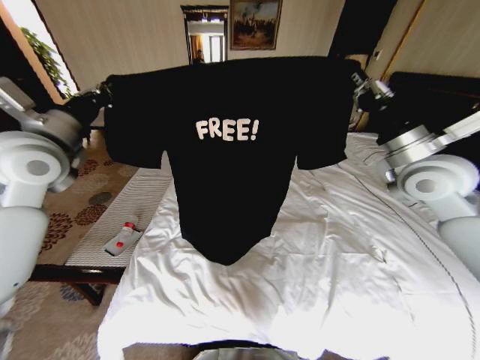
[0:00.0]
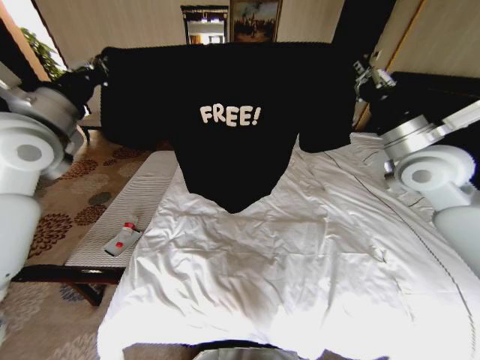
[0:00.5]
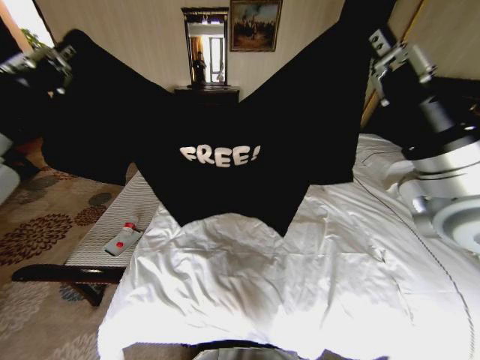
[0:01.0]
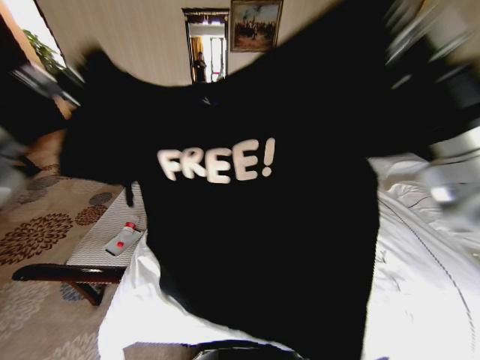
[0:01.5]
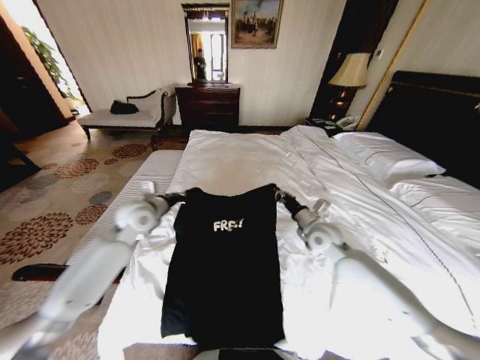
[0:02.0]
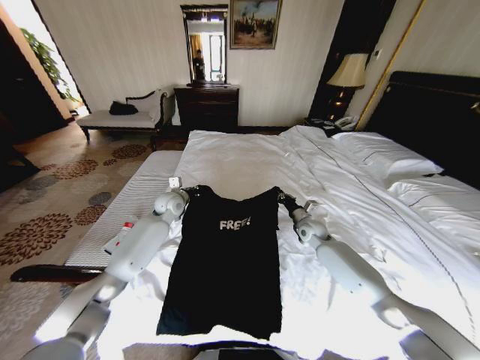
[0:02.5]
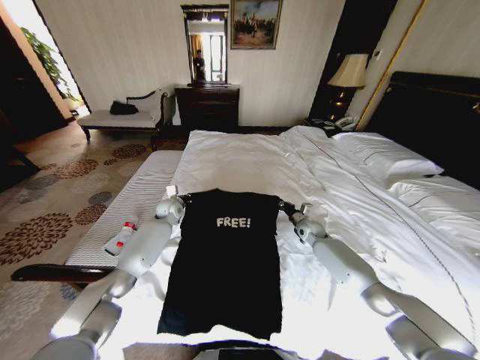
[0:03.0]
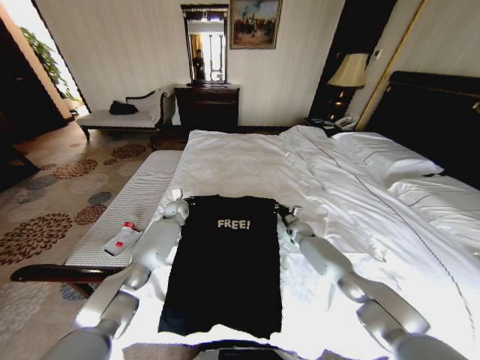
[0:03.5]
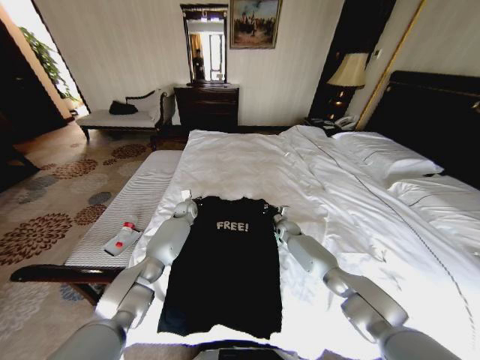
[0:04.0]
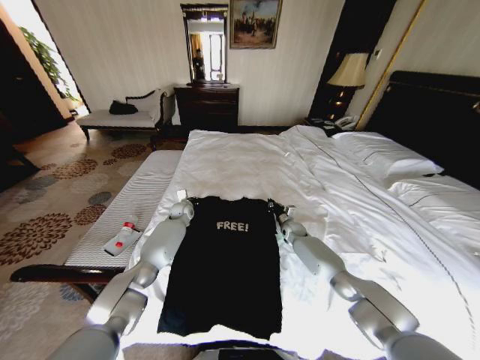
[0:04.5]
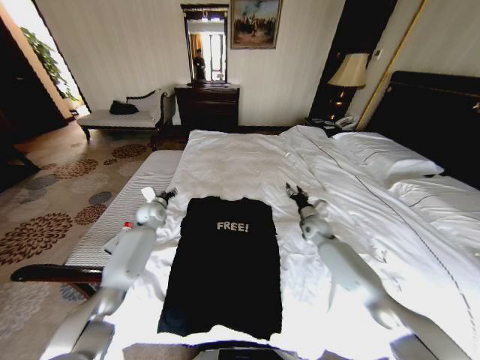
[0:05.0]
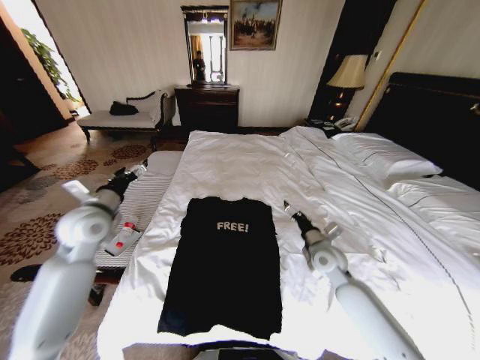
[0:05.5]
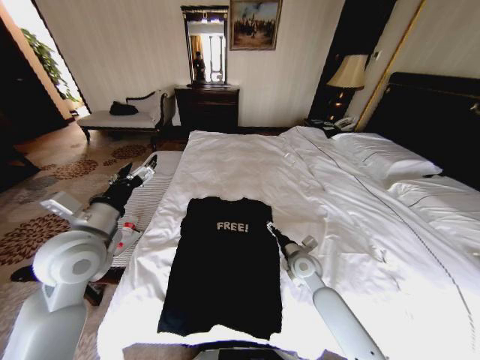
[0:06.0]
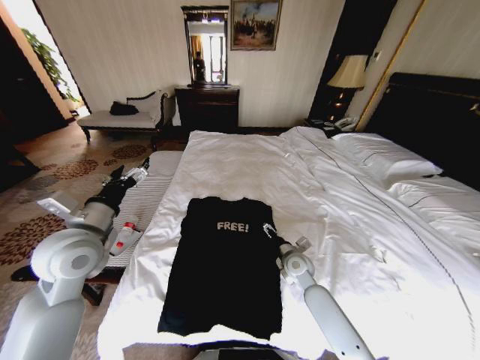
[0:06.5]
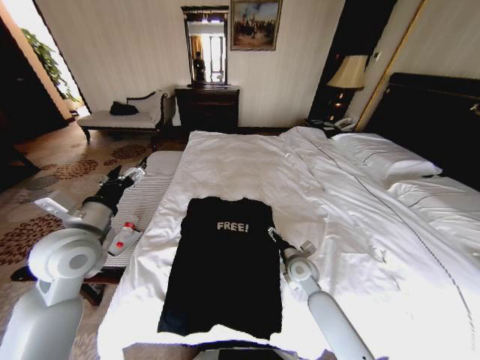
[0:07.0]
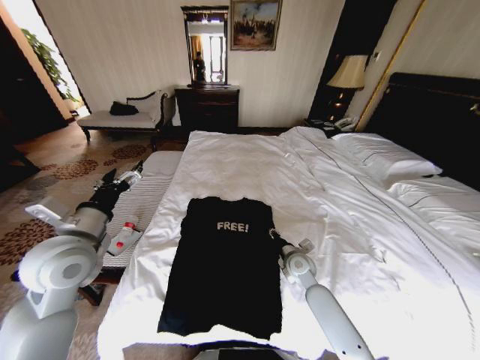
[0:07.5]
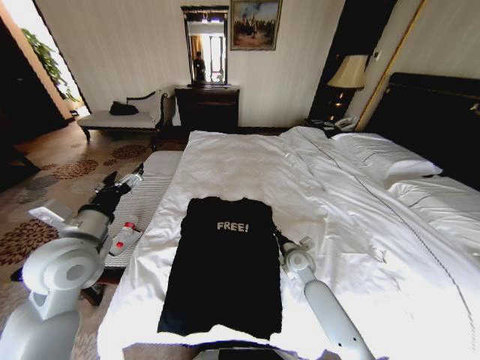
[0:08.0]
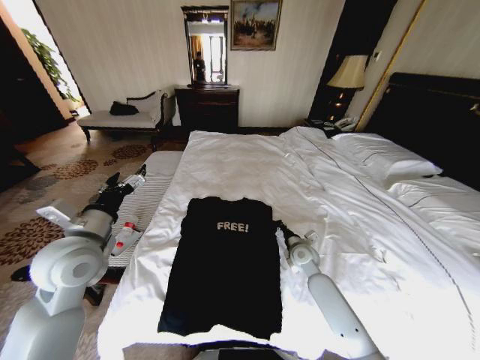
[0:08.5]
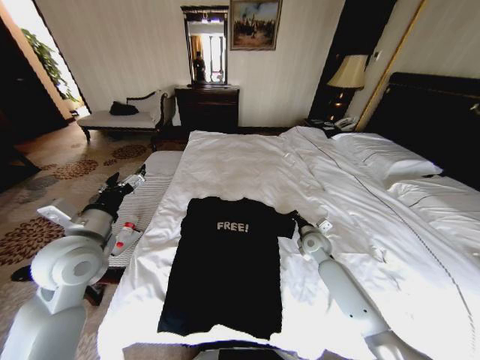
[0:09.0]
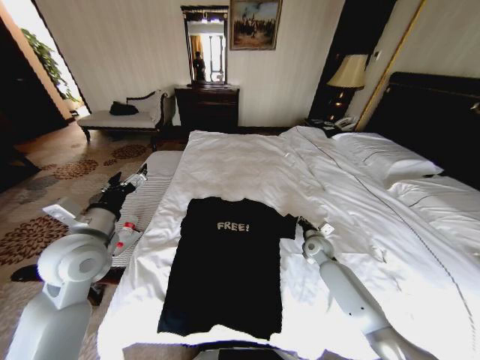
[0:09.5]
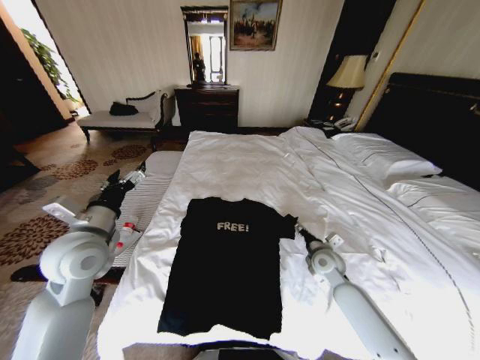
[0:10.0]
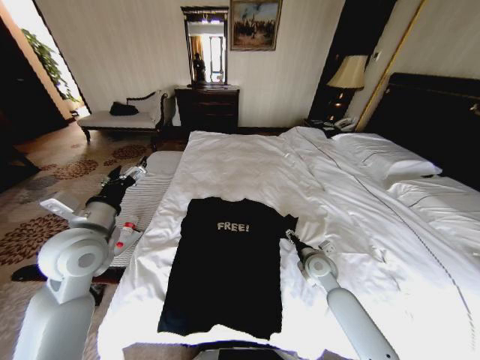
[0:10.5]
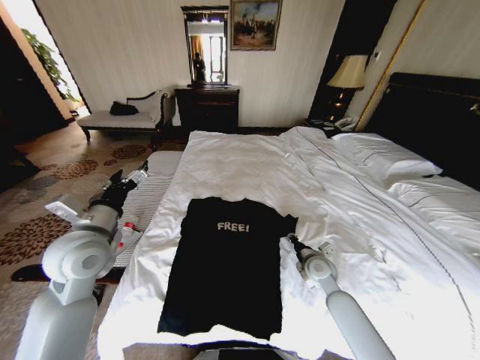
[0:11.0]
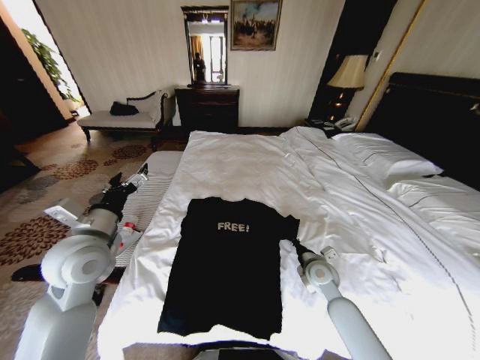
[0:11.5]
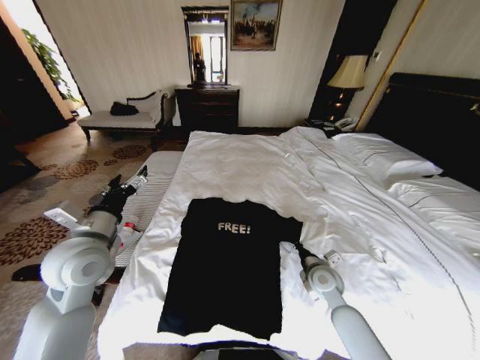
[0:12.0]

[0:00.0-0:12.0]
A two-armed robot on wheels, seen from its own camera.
Task of the whole recording: Fold the clothes on the bed.
0:00.0 to 0:02.0: The left gripper travels downward and to the right by about 20 cm, while the right gripper goes about 25 cm downward.
0:02.0 to 0:04.0: The left gripper travels forward and downward by about 25 cm. Meanwhile the right gripper goes approximately 25 cm downward and forward.
0:04.0 to 0:06.0: The left gripper shifts approximately 40 cm backward and upward, and opens its fingers, while the right gripper goes about 20 cm backward, and opens up.
0:06.0 to 0:08.0: The right gripper closes its fingers.
0:08.0 to 0:10.0: The right gripper goes approximately 5 cm to the right, and opens.
0:10.0 to 0:12.0: The right gripper shifts by approximately 5 cm, and closes its fingers.

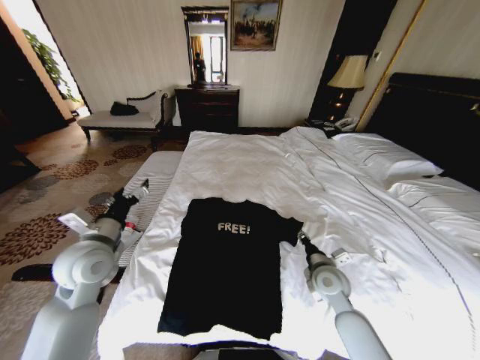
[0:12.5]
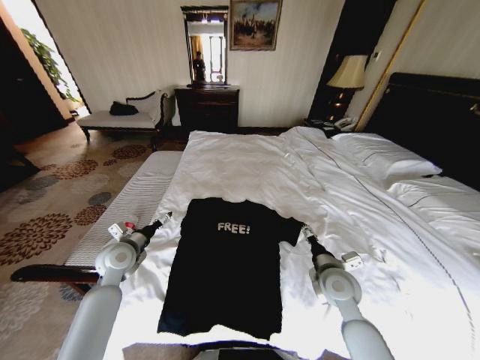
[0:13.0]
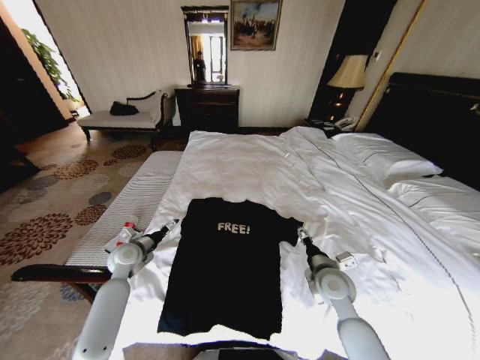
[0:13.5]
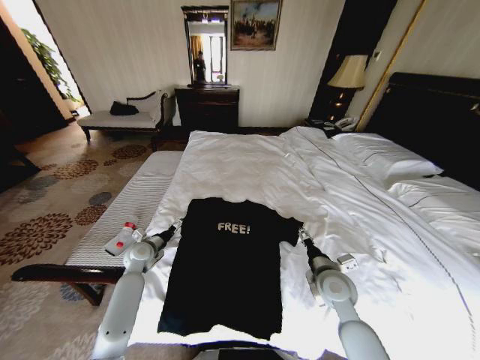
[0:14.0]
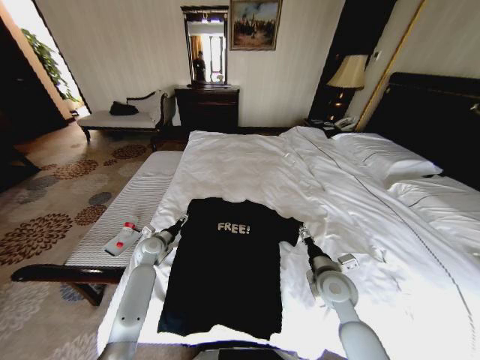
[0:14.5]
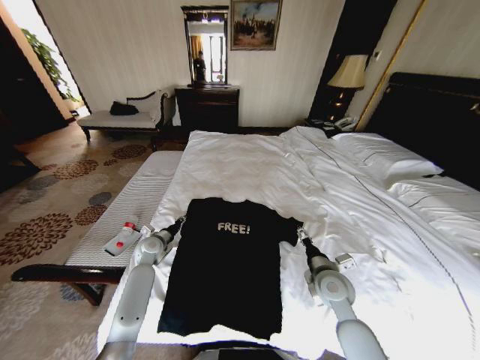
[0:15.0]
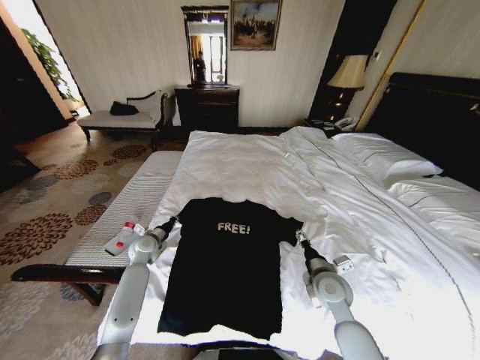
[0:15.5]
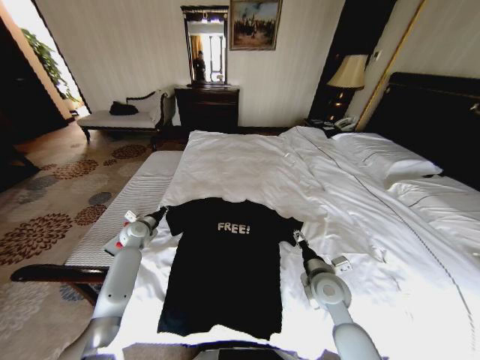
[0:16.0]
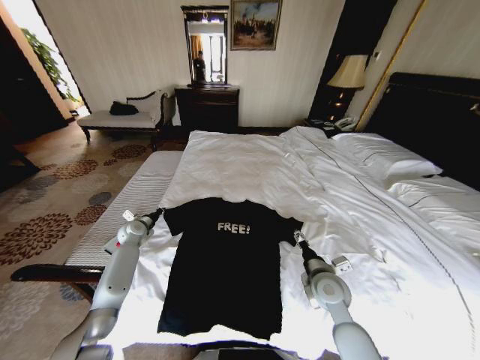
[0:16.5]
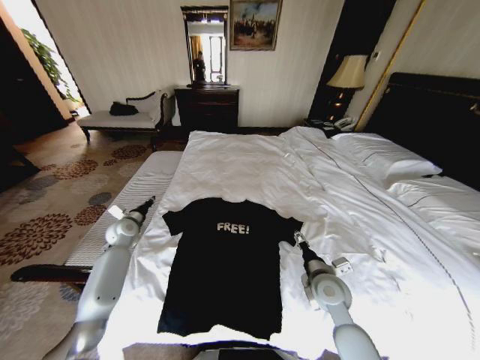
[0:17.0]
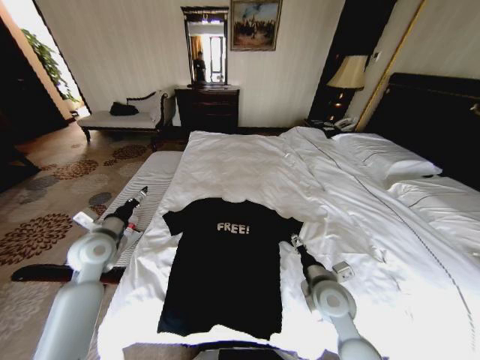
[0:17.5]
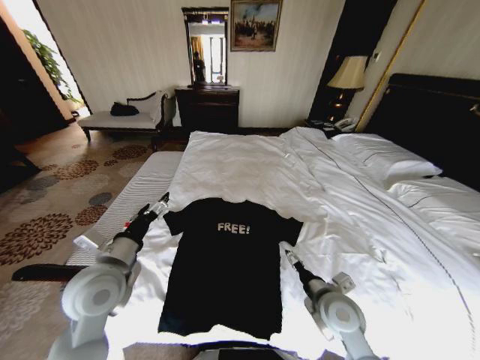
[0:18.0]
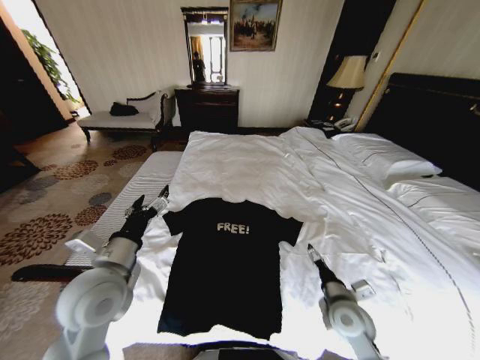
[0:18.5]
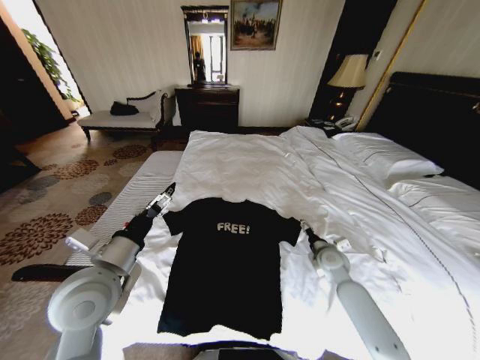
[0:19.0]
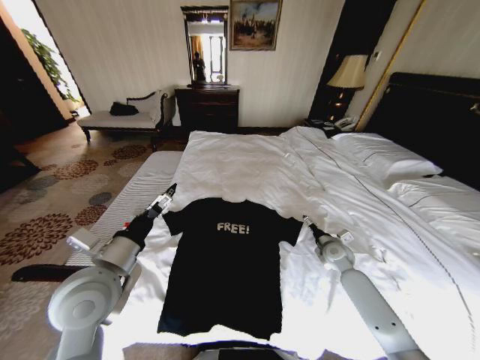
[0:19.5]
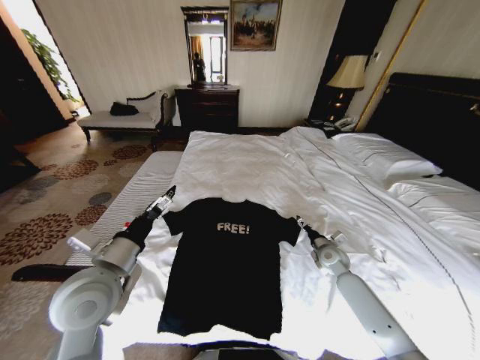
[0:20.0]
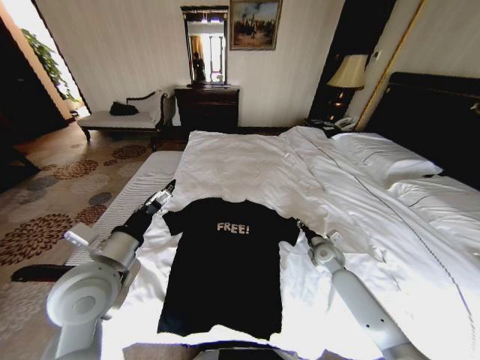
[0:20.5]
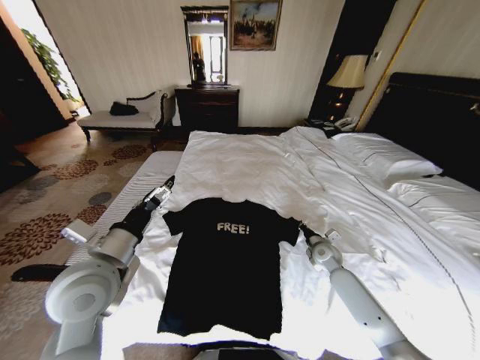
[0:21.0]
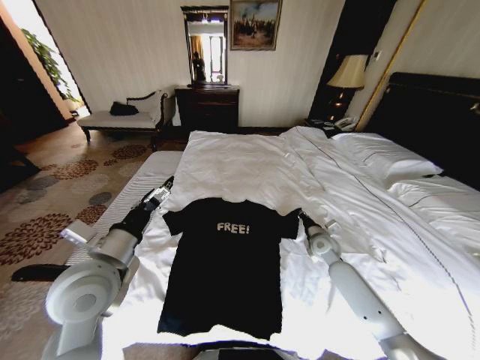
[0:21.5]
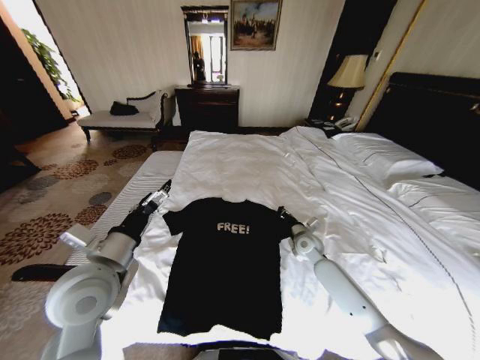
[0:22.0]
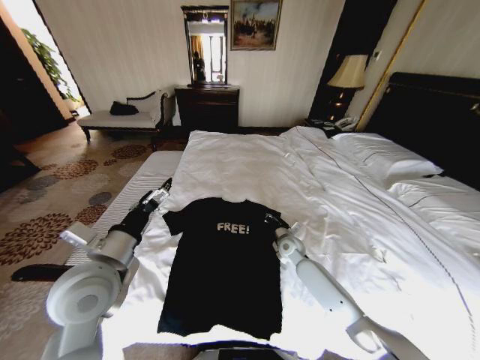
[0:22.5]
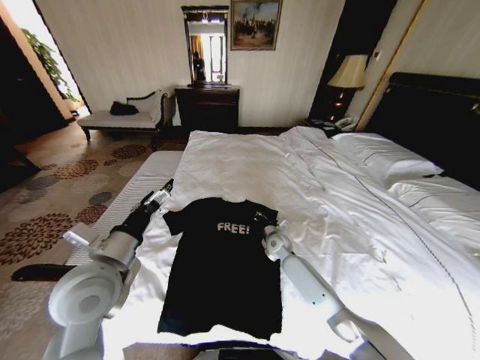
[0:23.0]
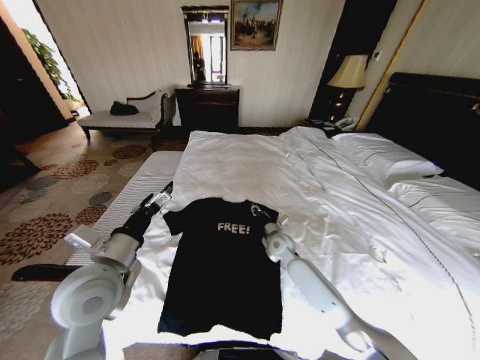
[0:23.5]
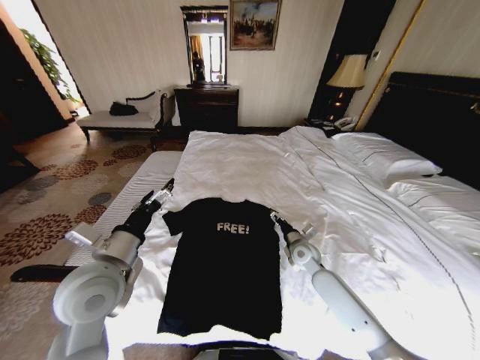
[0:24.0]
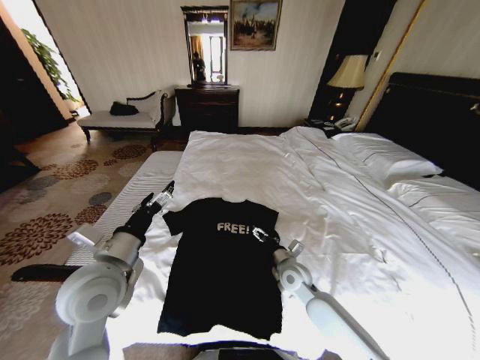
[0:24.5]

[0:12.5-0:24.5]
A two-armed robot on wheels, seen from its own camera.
Task of the whole recording: Fold the clothes on the bed.
0:12.5 to 0:14.5: The right gripper opens; the left gripper heads downward and forward, covering roughly 25 cm.
0:14.5 to 0:16.5: The left gripper goes some 10 cm to the left and forward, and closes.
0:16.5 to 0:18.5: The right gripper travels backward by roughly 5 cm, while the left gripper heads backward, upward and to the right, covering some 35 cm, and opens its fingers.
0:18.5 to 0:20.5: The right gripper travels forward by roughly 20 cm.
0:20.5 to 0:22.5: The right gripper heads to the left, covering roughly 15 cm, and closes up.
0:22.5 to 0:24.5: The right gripper is displaced backward by roughly 10 cm, and opens its fingers.

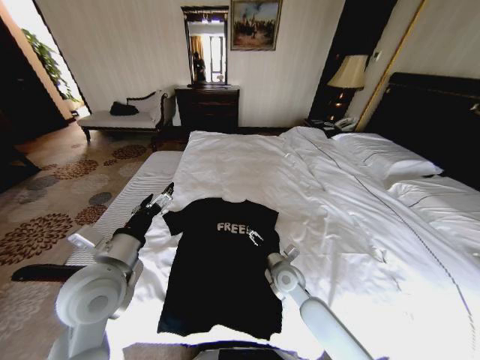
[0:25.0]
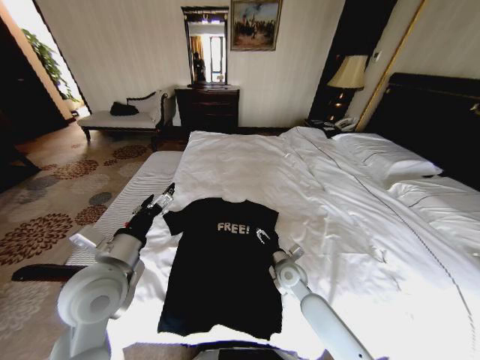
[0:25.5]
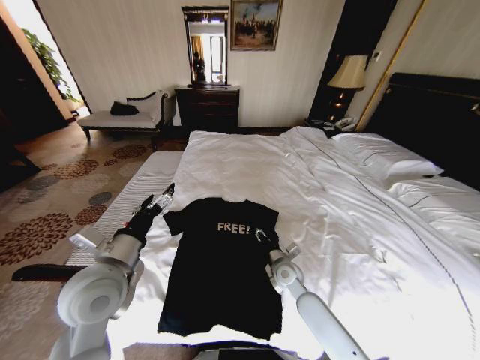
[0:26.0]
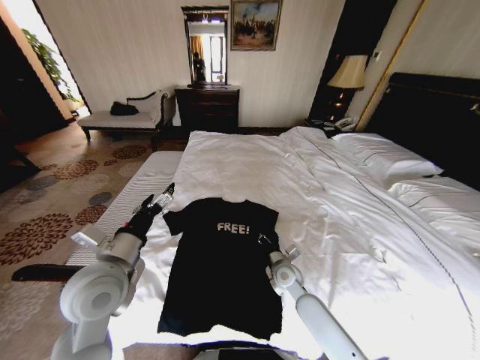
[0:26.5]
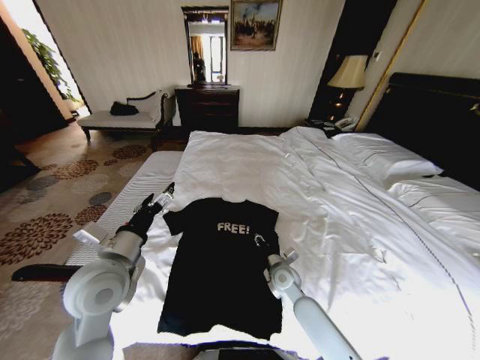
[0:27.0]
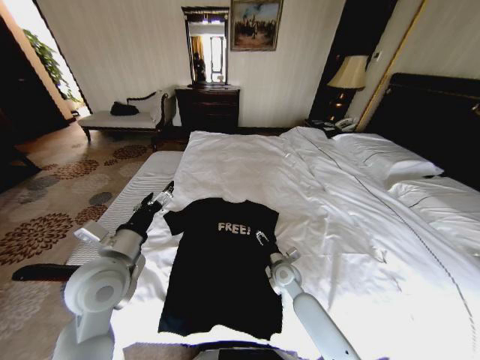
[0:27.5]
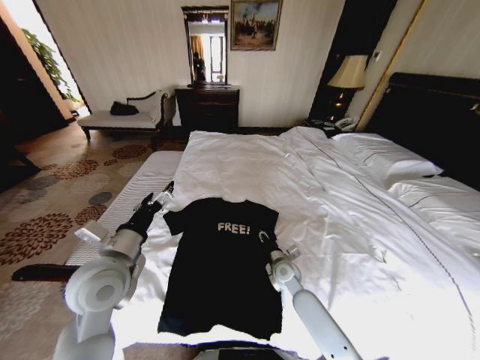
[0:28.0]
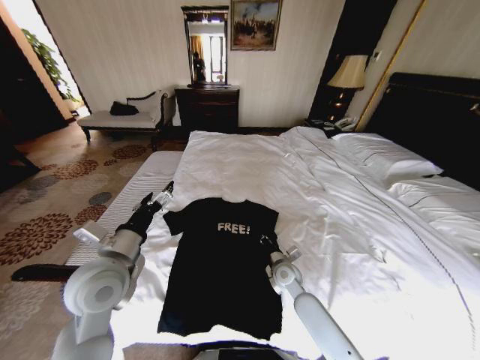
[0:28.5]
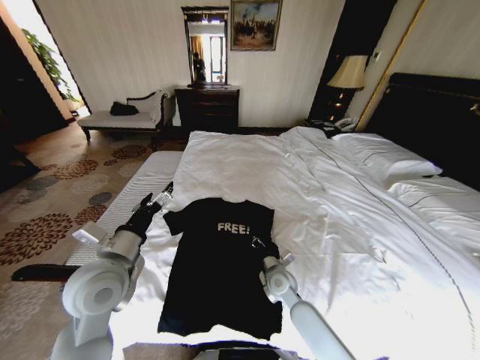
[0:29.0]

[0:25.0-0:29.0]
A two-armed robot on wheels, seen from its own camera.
Task of the whole recording: Fold the clothes on the bed.
0:25.0 to 0:27.0: The right gripper closes.
0:27.0 to 0:29.0: The right gripper closes its fingers.
